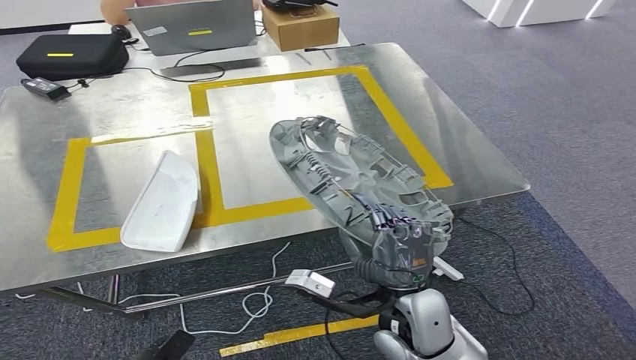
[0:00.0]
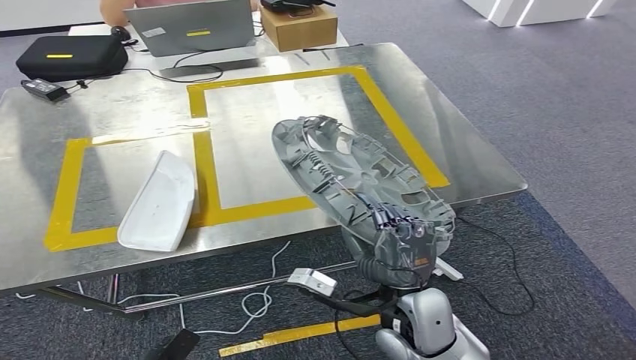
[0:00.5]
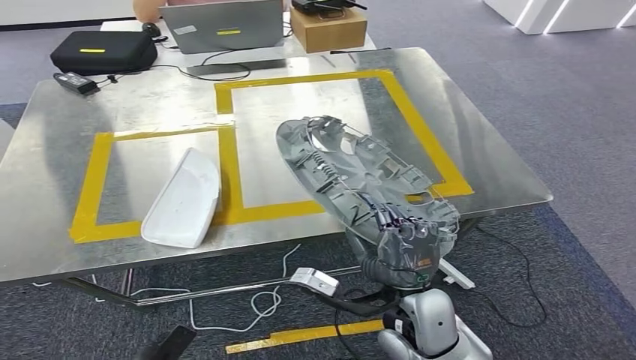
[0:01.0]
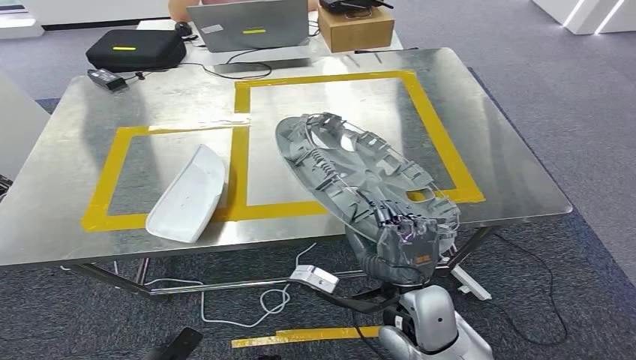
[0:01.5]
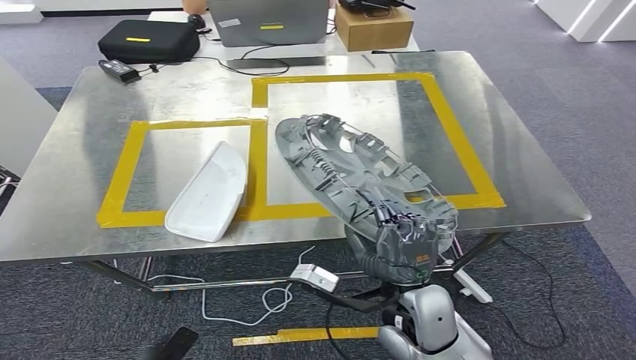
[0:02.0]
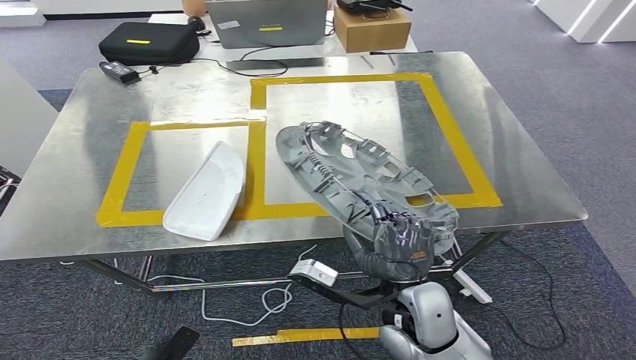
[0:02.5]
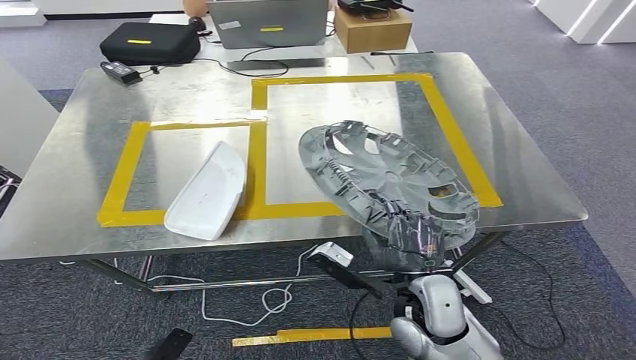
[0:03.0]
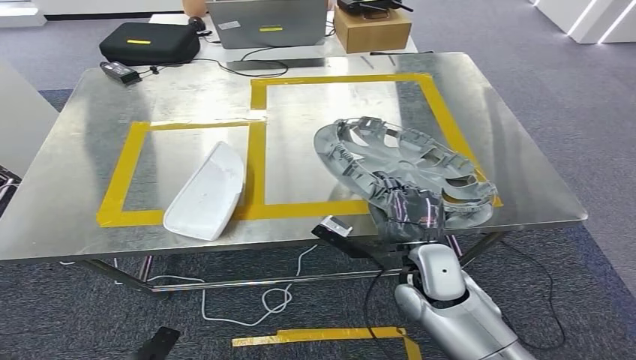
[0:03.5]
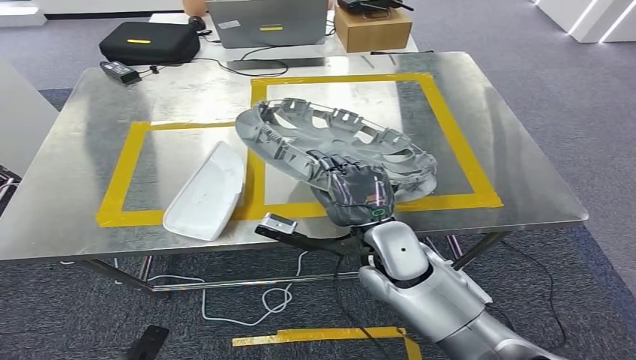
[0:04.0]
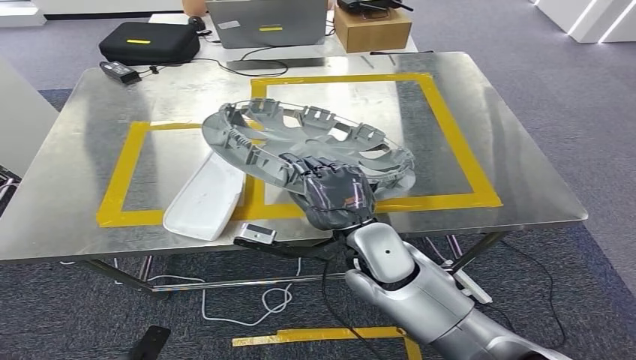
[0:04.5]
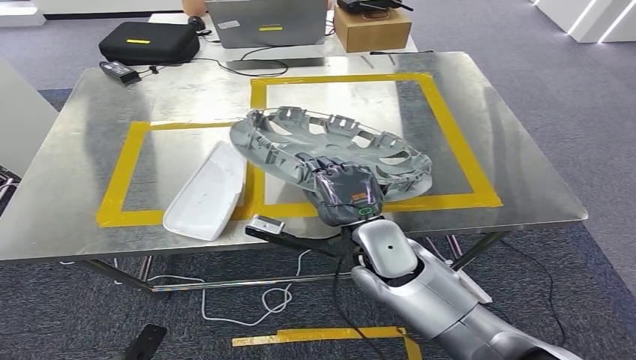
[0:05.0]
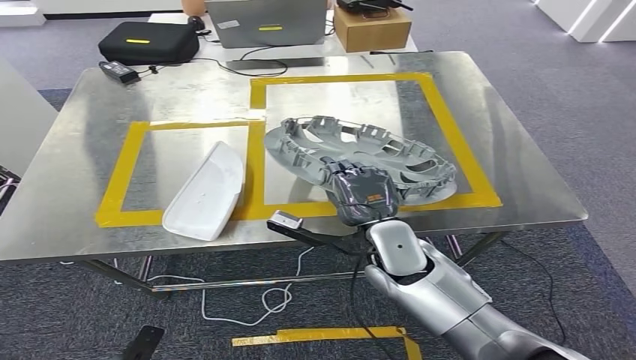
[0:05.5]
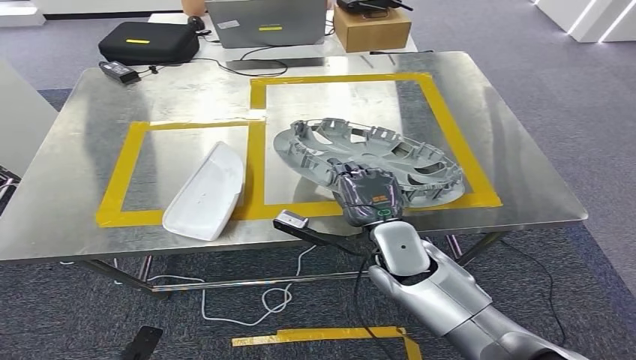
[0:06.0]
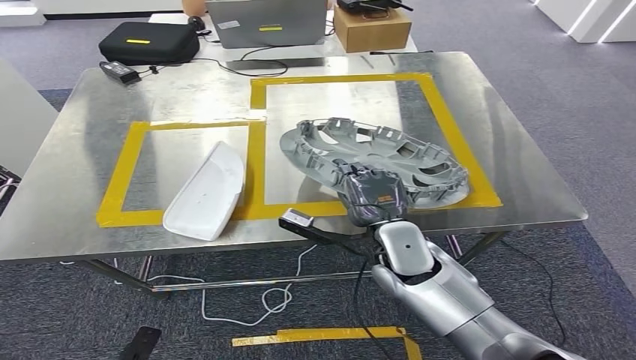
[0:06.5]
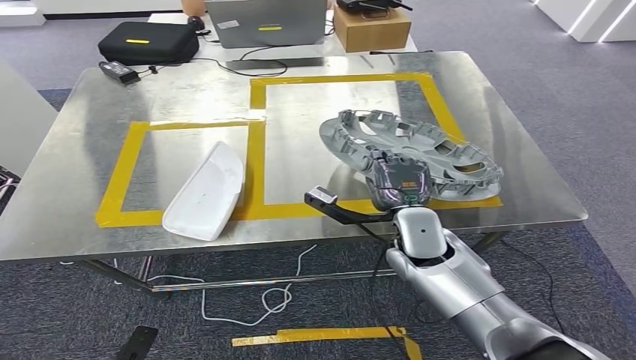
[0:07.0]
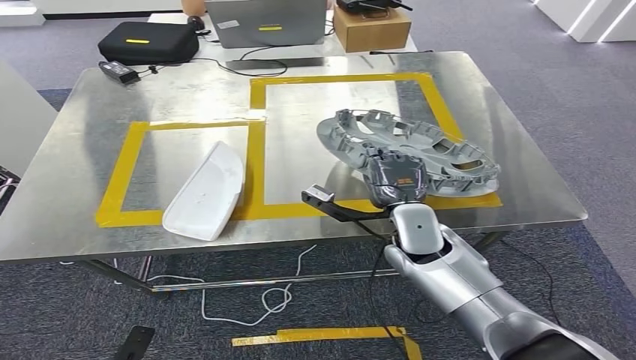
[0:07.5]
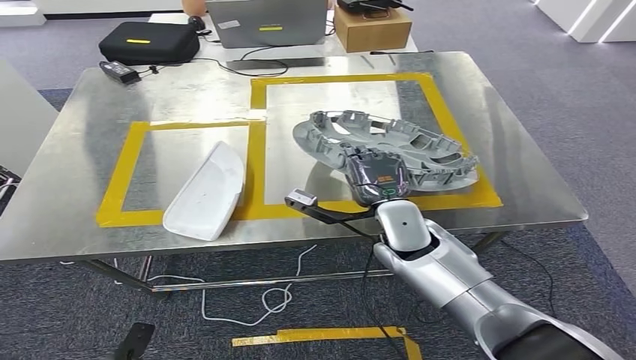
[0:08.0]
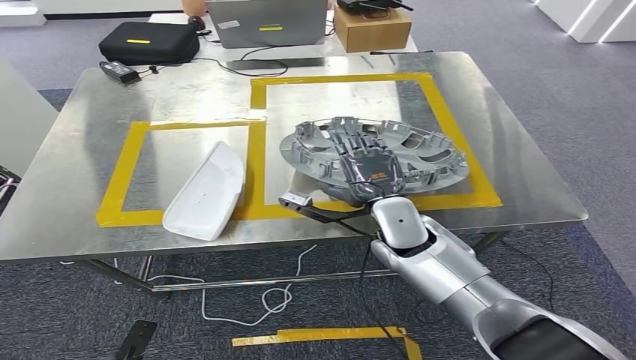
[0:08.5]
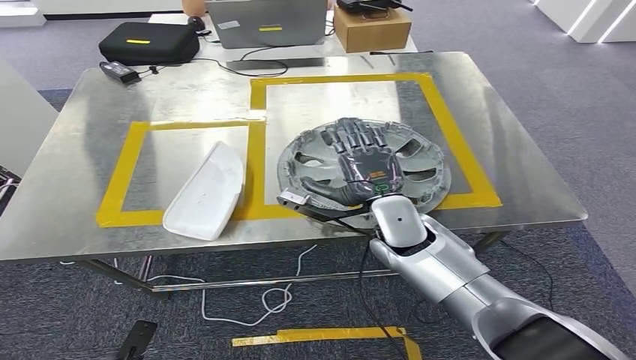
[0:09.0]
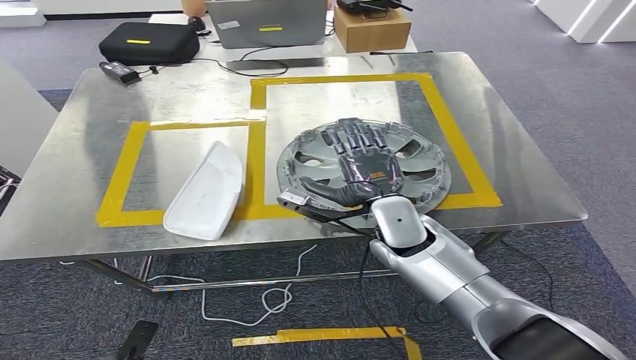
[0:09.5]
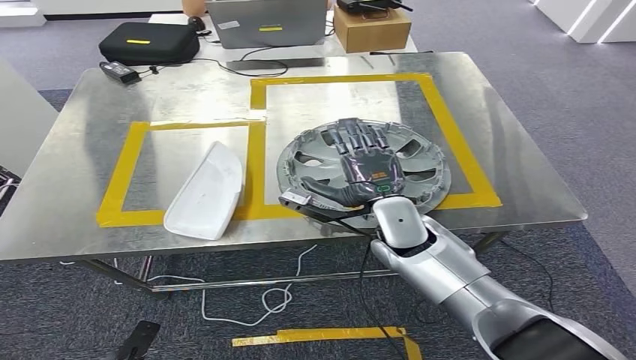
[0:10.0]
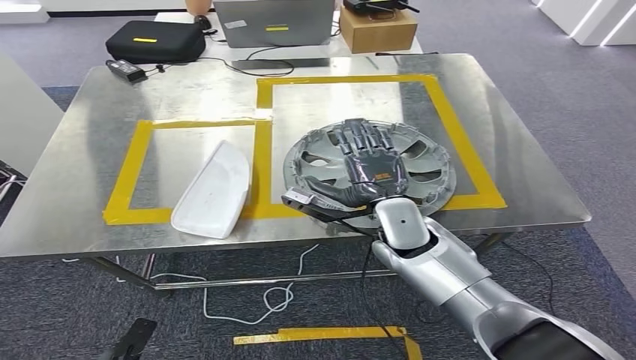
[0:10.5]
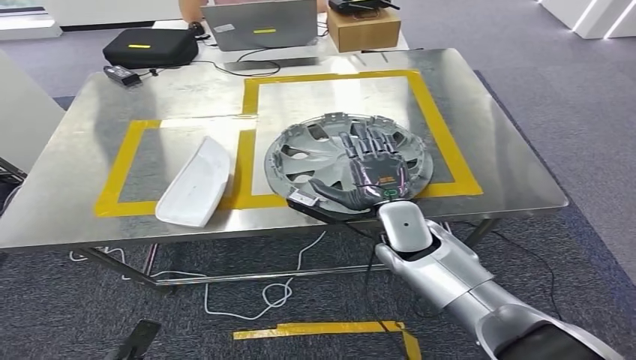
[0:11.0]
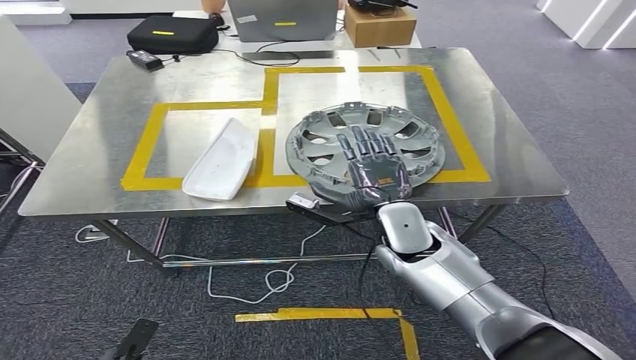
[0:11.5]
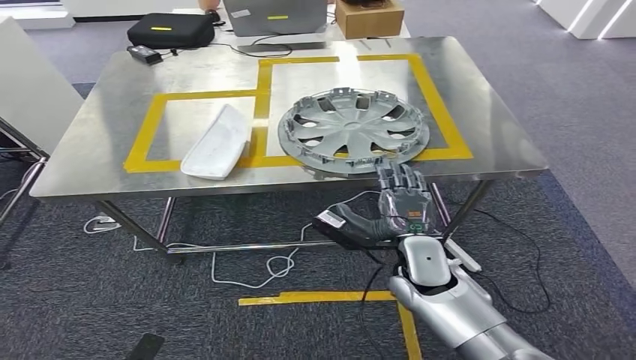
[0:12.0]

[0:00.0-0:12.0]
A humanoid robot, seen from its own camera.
0:02.0 to 0:04.0: The right hand goes roughly 10 cm forward.
0:04.0 to 0:06.0: The hands stay close to where they were, moving slightly.
0:06.0 to 0:08.0: There are only small adjustments of the hands.
0:08.0 to 0:10.0: Both hands stay put.

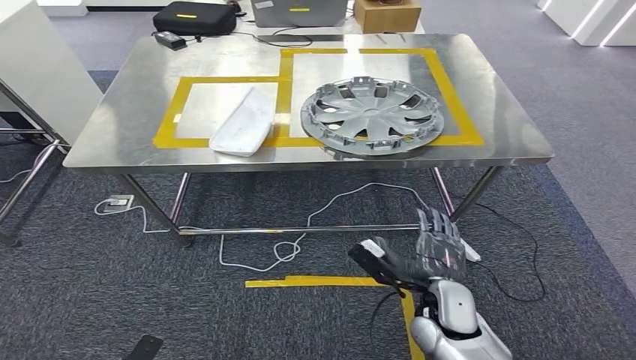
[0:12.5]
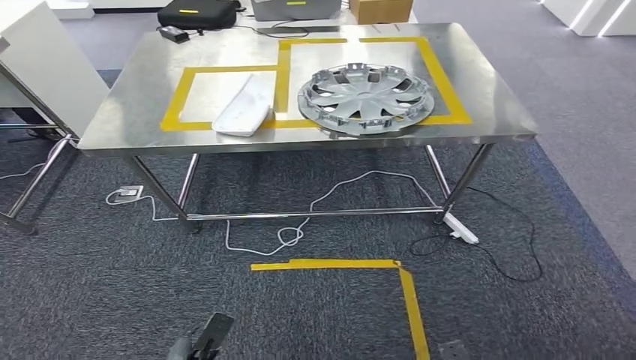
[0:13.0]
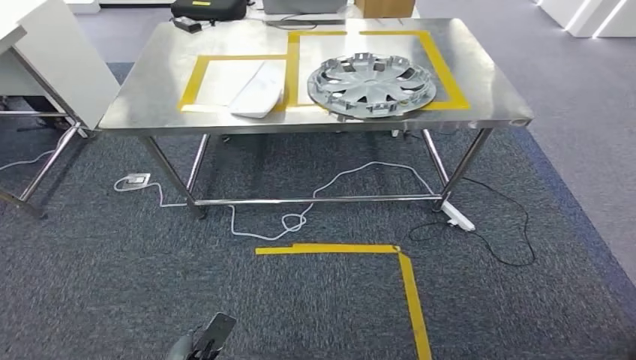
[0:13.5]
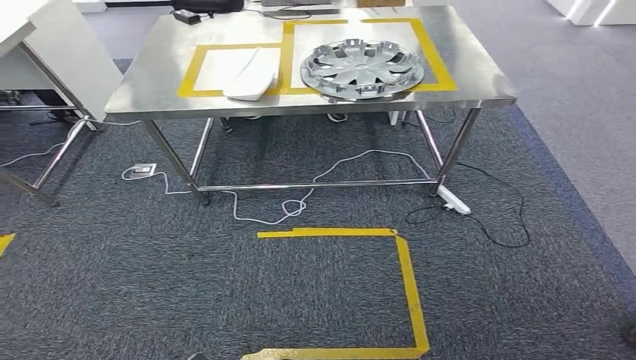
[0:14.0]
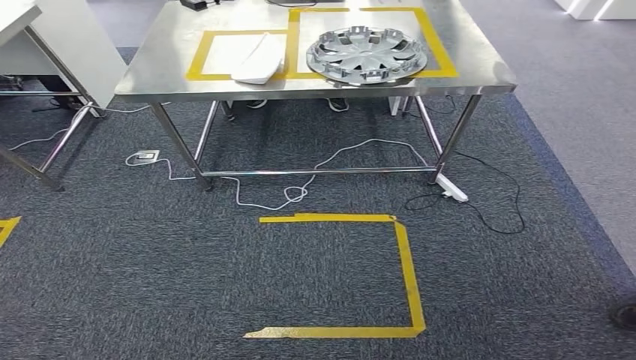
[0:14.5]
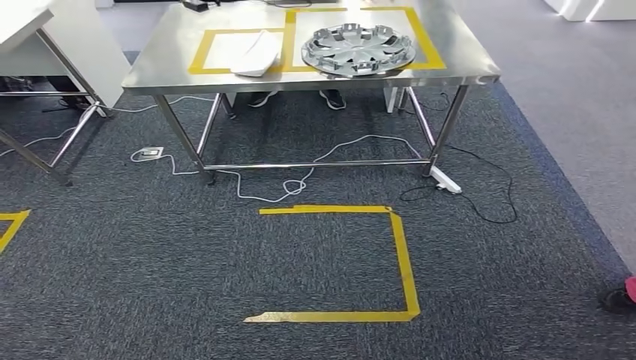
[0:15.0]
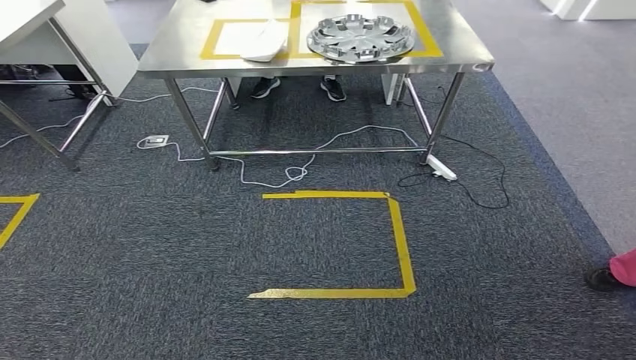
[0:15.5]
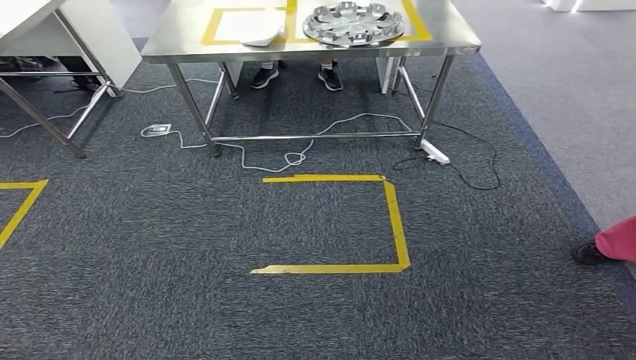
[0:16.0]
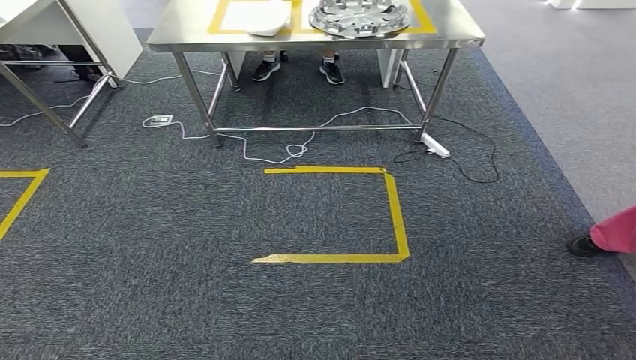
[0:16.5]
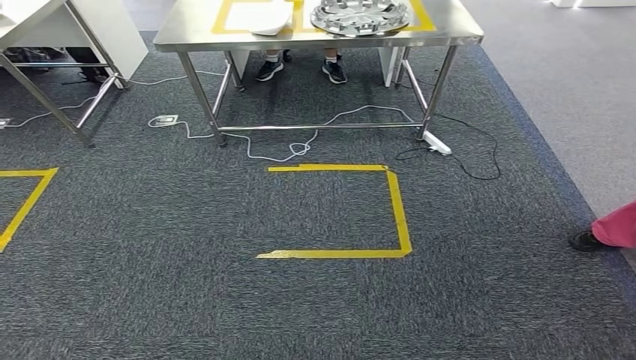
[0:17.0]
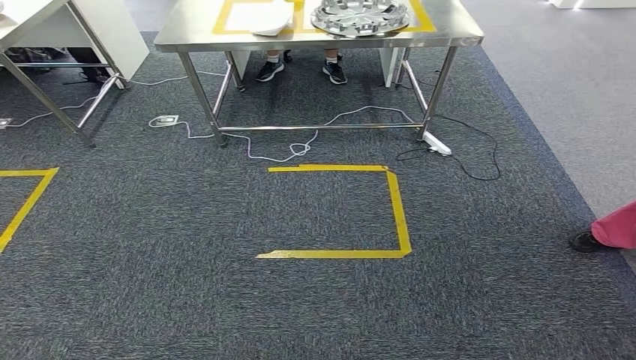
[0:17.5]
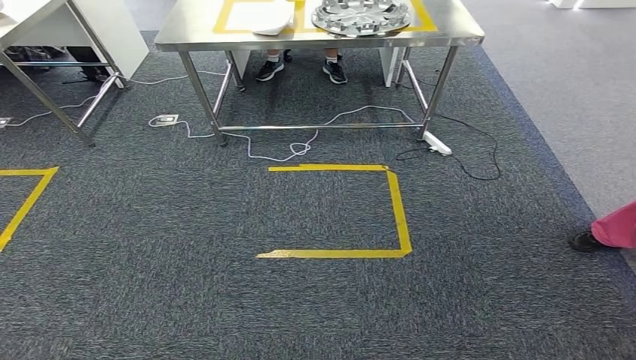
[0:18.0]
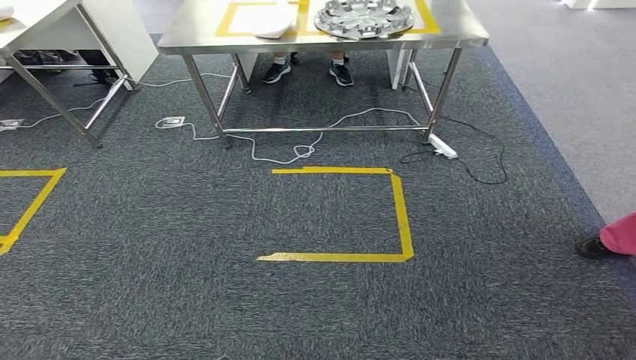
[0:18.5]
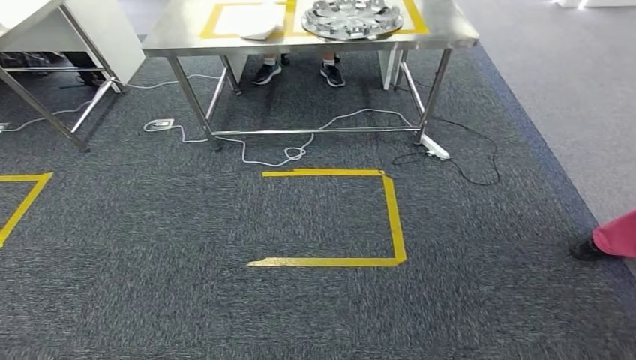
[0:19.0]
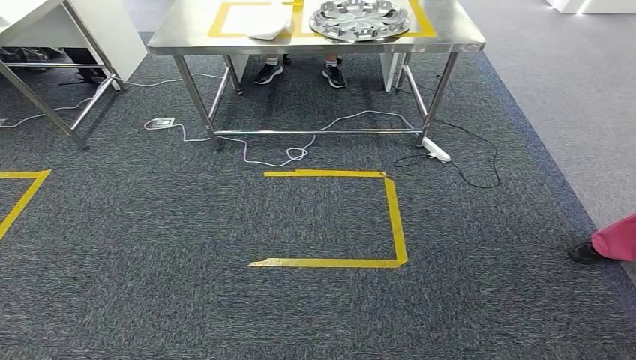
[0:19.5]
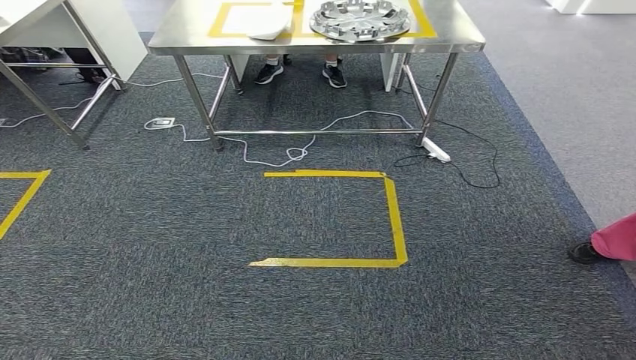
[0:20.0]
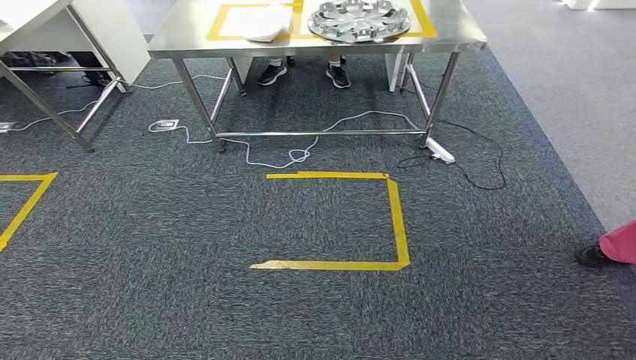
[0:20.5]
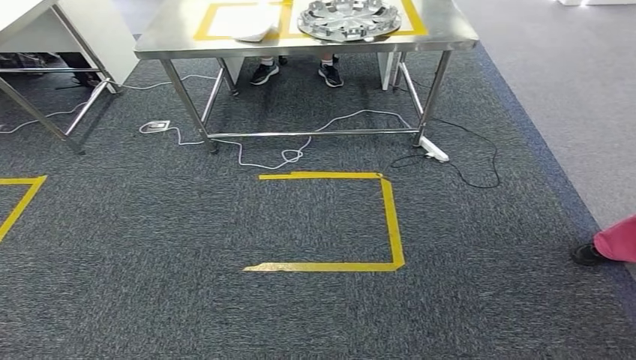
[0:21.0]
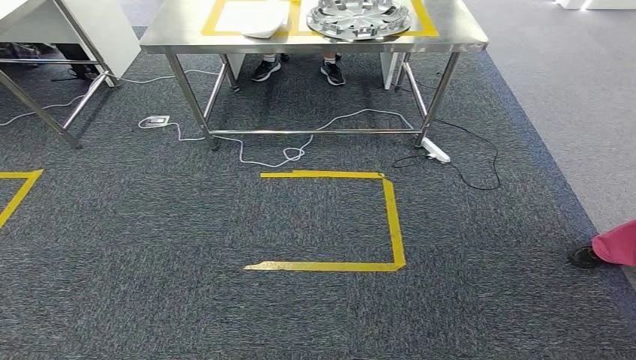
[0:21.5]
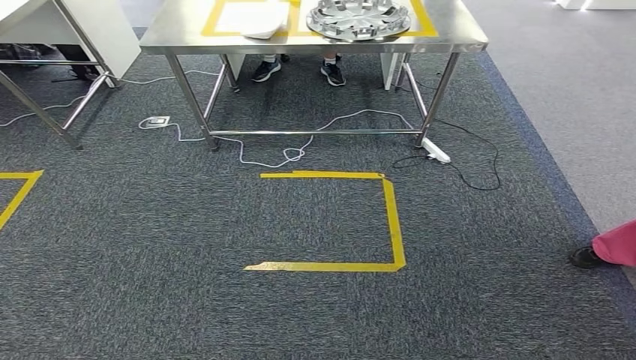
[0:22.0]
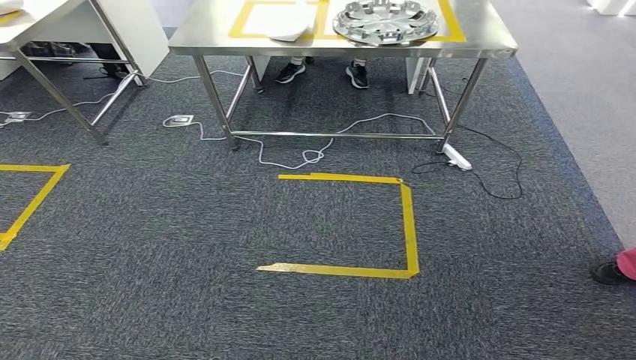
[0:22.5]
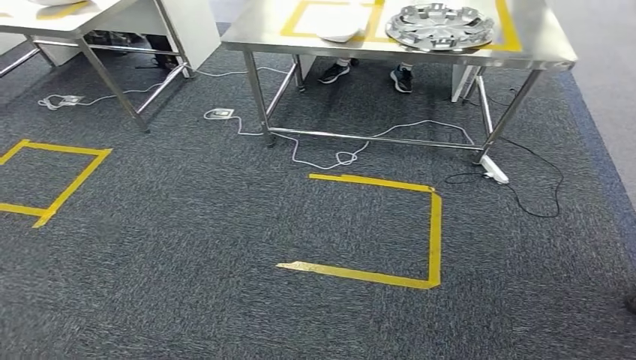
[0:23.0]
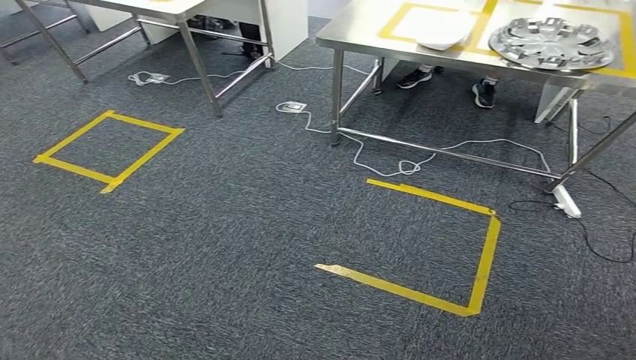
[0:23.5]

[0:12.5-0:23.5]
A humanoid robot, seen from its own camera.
Step, 0:12.5 to 0:18.0: Insert the small component into the corresponding slot on the workbench.
0:16.0 to 0:20.0: There are only small adjustments of the hands.
0:20.0 to 0:21.5: Both hands stay put.
